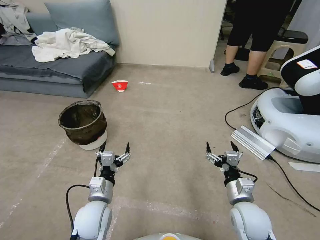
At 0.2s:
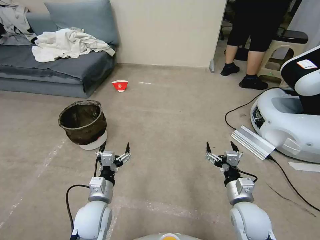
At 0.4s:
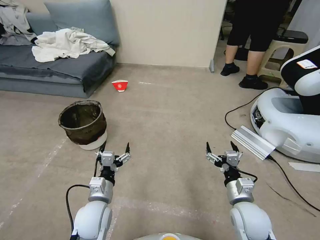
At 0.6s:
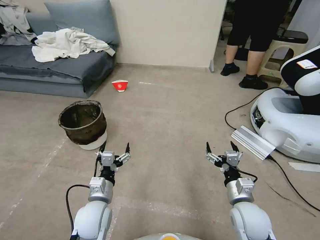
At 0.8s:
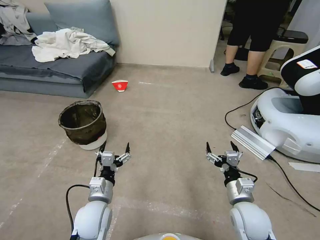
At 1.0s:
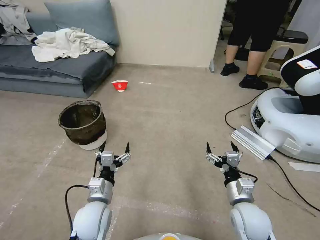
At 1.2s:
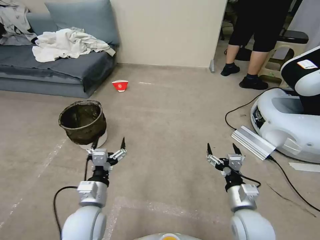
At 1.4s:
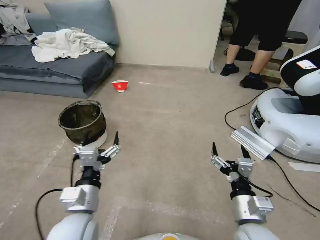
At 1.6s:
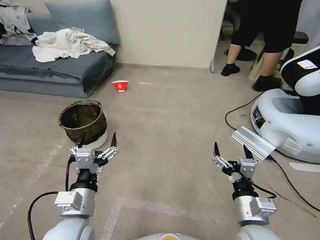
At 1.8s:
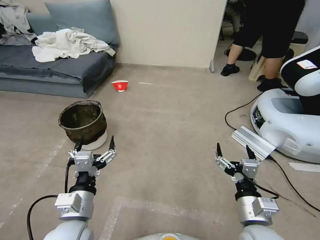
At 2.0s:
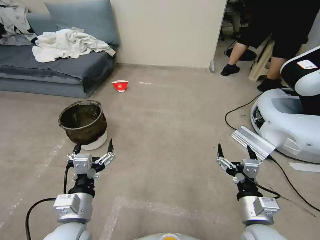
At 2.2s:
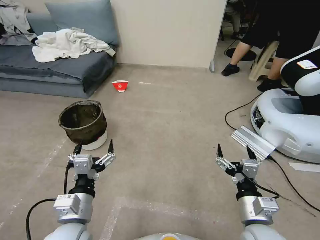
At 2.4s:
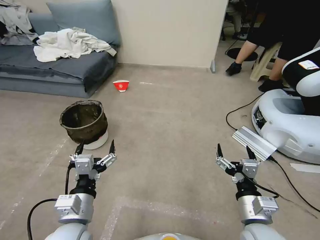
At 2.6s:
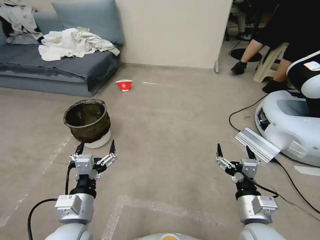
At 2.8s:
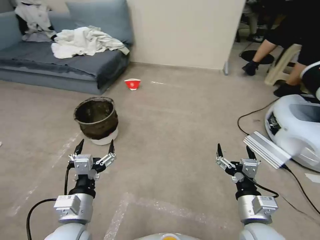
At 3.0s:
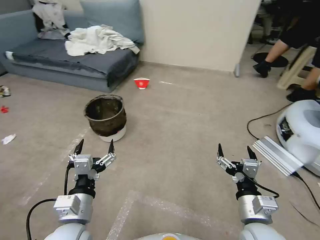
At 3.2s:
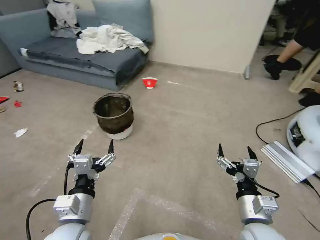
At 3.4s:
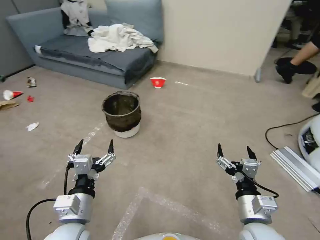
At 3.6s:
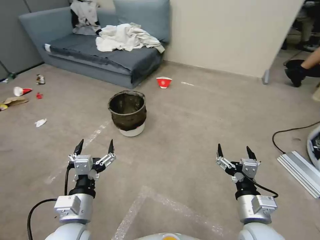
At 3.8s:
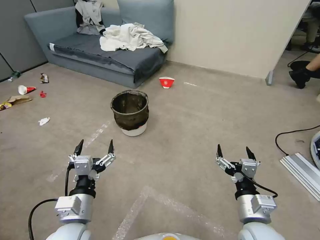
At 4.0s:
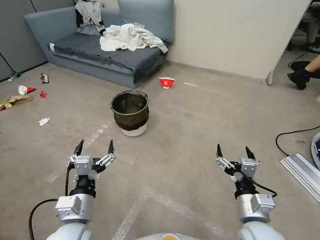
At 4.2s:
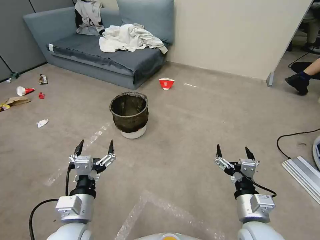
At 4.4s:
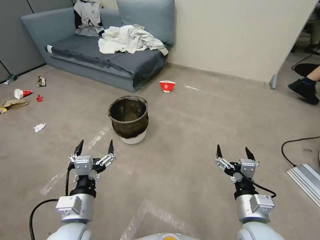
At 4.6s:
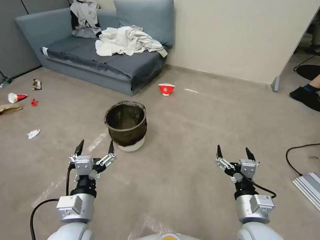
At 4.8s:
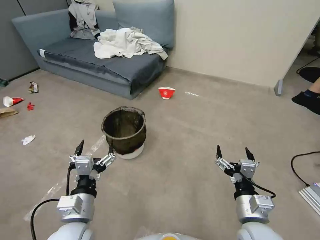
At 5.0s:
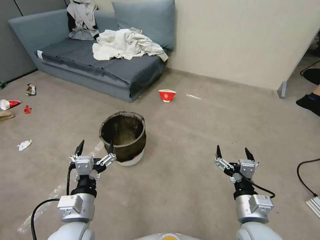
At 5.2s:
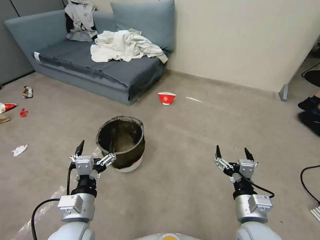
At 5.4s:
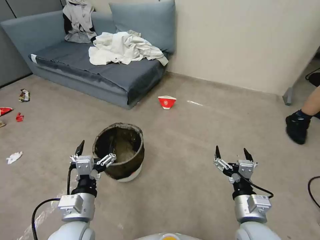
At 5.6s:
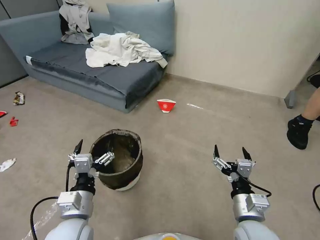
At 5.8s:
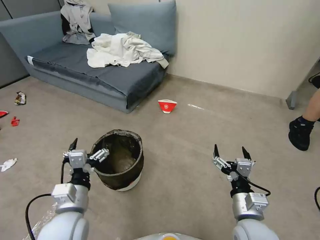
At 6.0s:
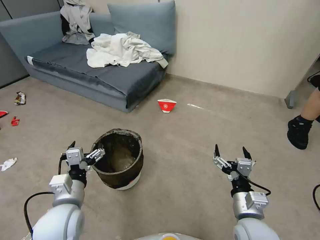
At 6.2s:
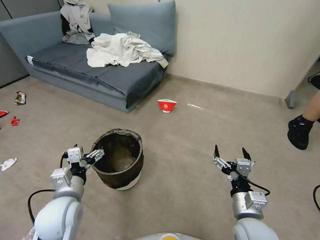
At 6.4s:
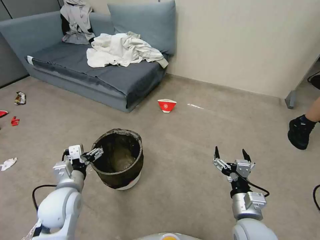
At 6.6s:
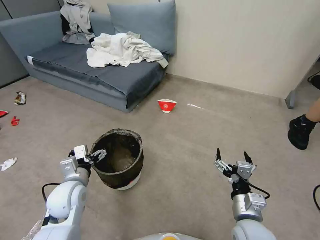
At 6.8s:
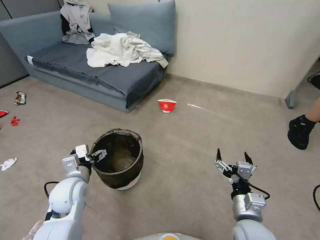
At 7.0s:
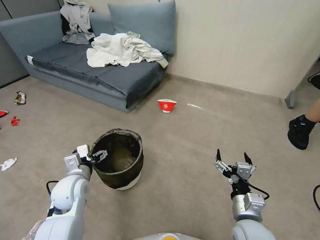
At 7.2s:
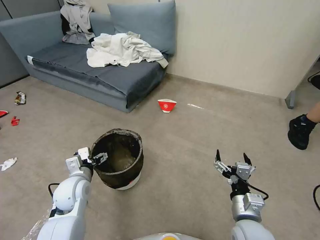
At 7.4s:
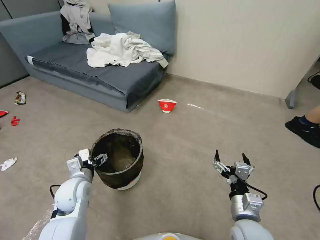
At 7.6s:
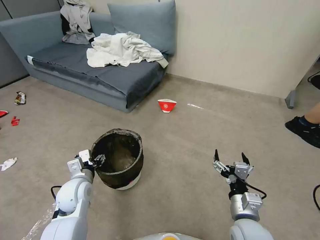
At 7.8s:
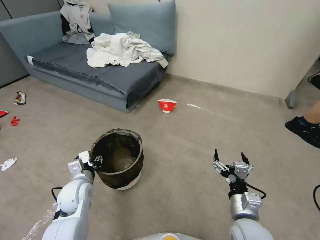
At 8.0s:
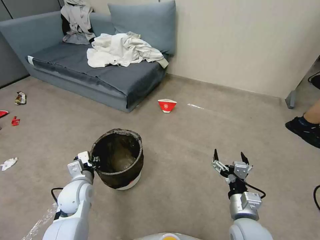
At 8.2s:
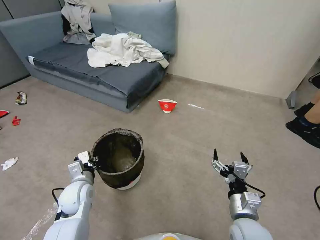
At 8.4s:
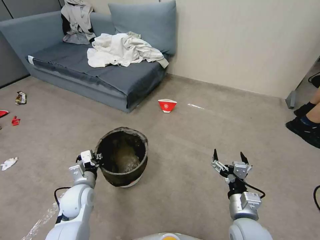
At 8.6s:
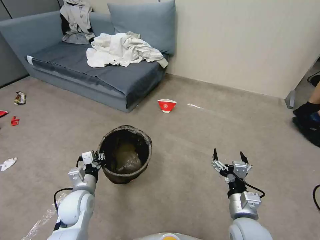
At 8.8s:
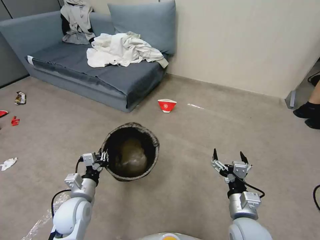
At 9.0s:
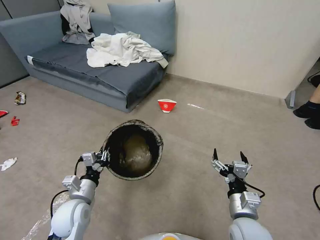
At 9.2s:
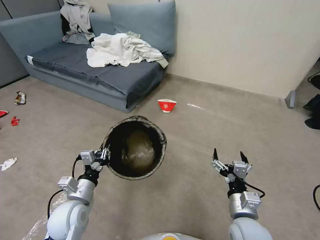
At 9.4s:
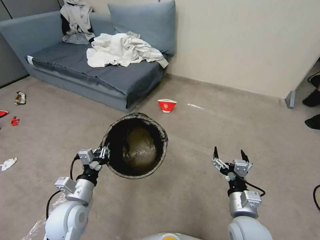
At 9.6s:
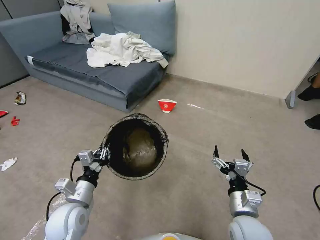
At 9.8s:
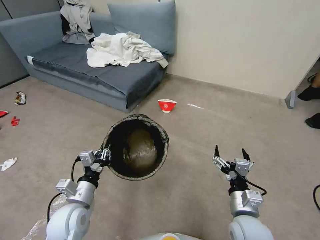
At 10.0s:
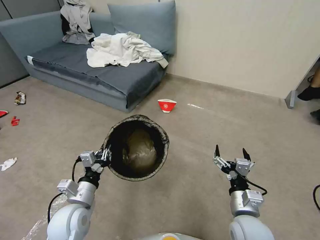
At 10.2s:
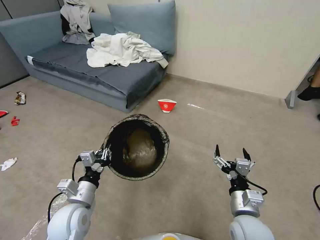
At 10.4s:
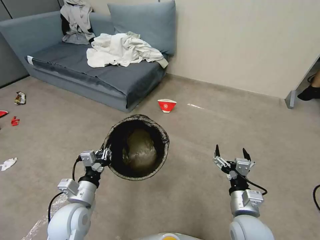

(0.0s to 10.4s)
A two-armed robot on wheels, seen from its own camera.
Task of the whole recording: Pick up the trash can from the floor.
4.4s - 6.0s: The left gripper changes place by about 5 cm.
6.0s - 7.4s: The left gripper travels forward and downward by approximately 10 cm.
7.4s - 9.0s: The left gripper heads backward, covering approximately 5 cm, and closes.
9.0s - 10.4s: The grippers stay close to where they were, moving slightly.
